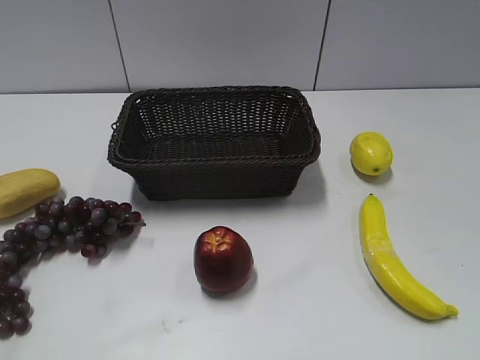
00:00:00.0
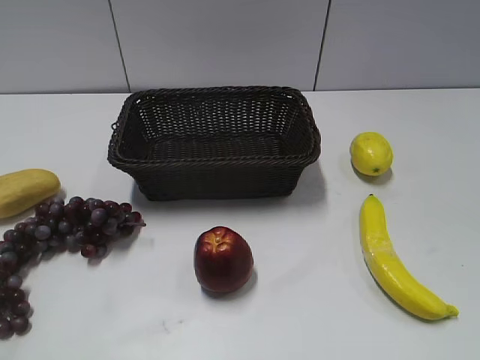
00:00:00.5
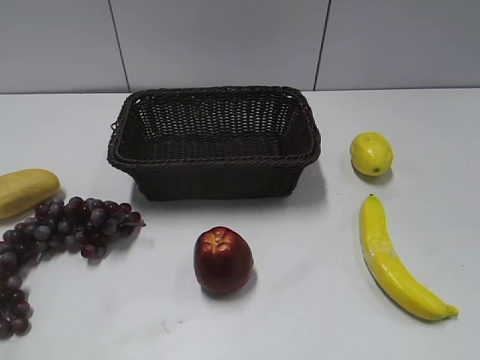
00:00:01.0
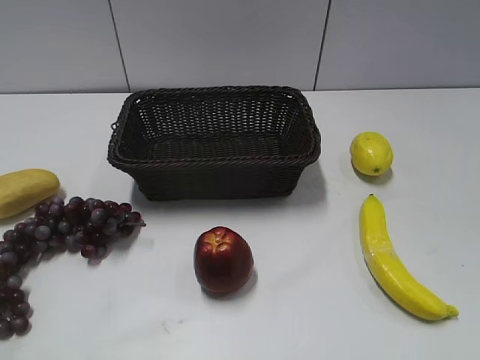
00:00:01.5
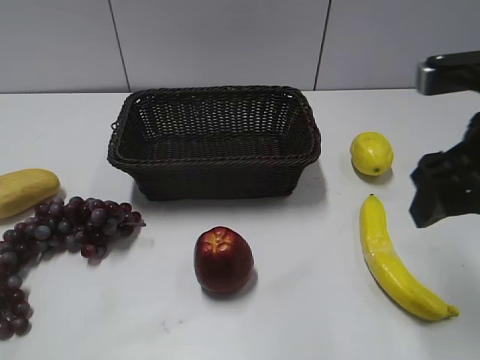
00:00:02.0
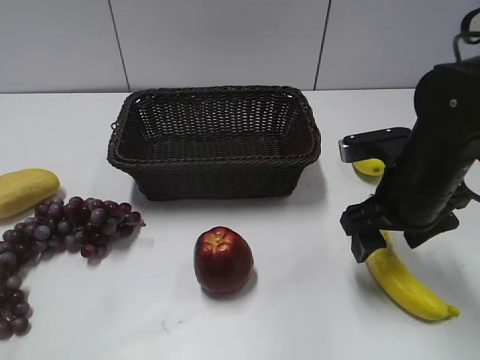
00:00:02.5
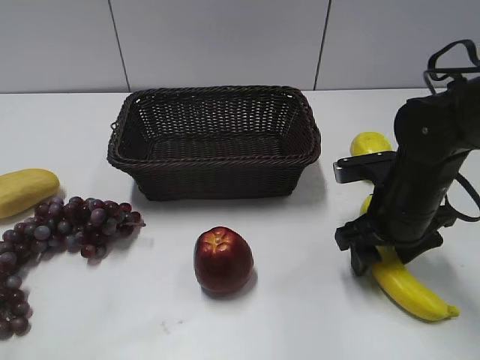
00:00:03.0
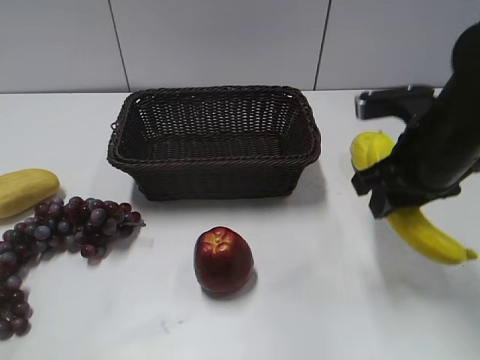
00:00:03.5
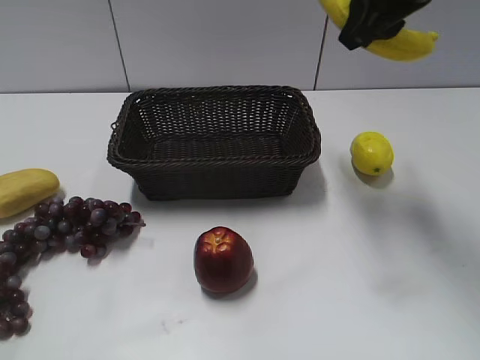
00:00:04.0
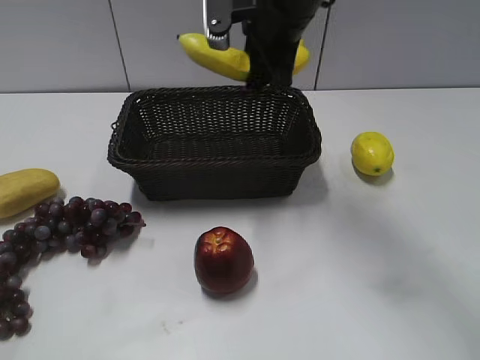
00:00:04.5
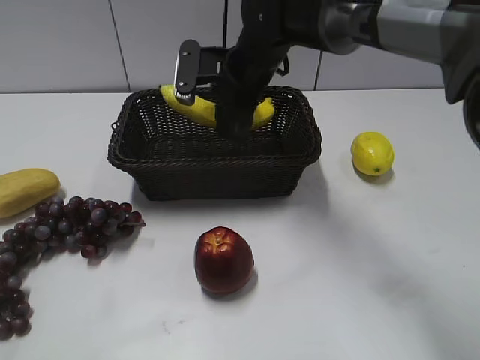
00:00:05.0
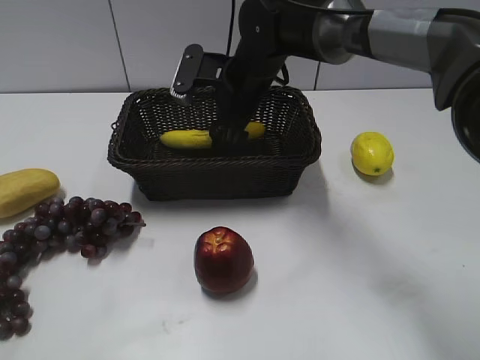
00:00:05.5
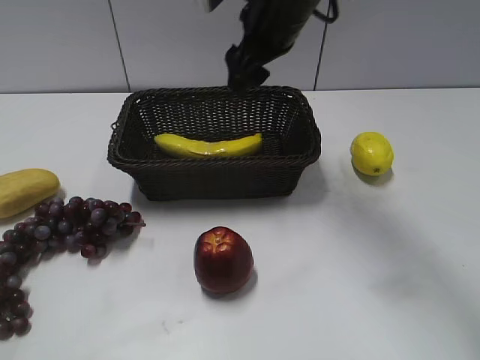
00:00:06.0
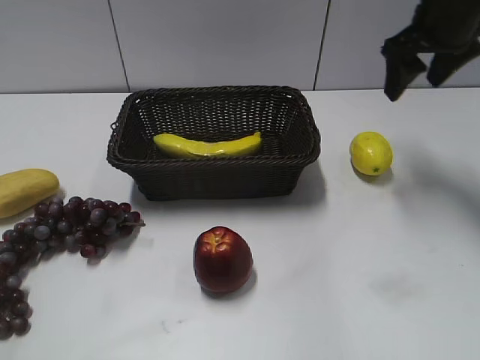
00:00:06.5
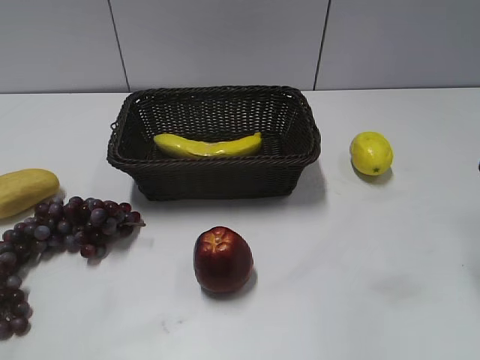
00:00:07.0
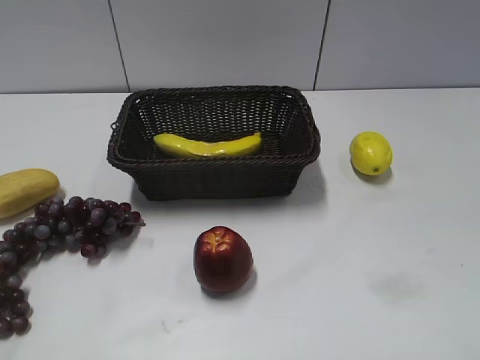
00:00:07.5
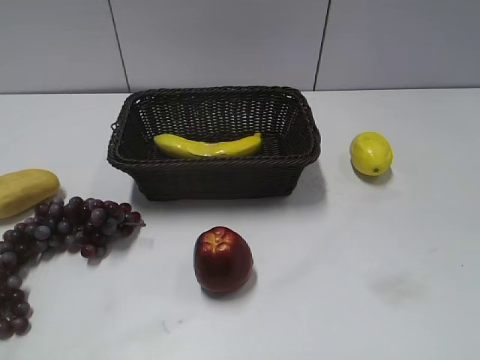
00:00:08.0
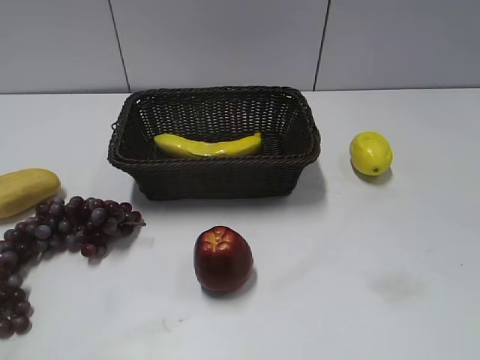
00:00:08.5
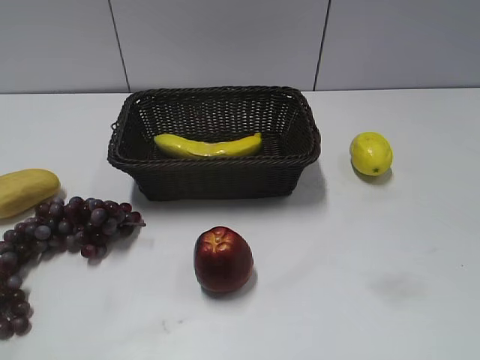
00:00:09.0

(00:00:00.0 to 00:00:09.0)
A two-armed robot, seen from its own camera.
Step, 00:00:02.0 - 00:00:03.0: Grasp the banana with right gripper.
Step, 00:00:03.5 - 00:00:05.5: Place the banana in the basket with right gripper.
00:00:02.0 - 00:00:04.5: The right gripper moves up and down over approximately 25 cm, changing direction 2 times, and closes.
00:00:04.5 - 00:00:07.0: The right gripper moves to the right and backward, about 30 cm, and opens up.
